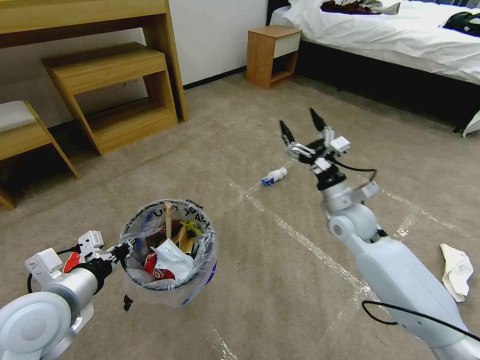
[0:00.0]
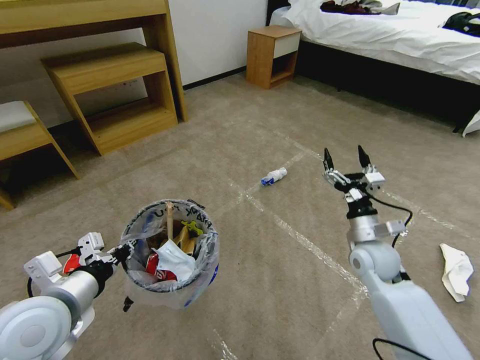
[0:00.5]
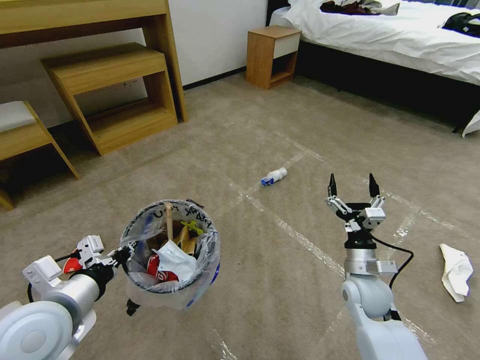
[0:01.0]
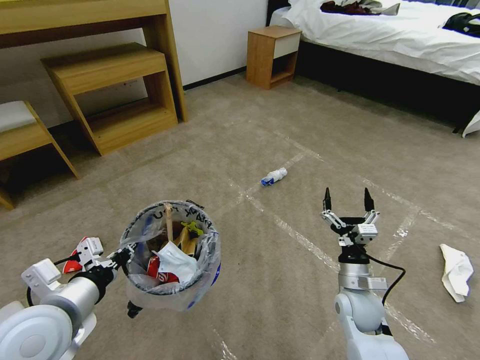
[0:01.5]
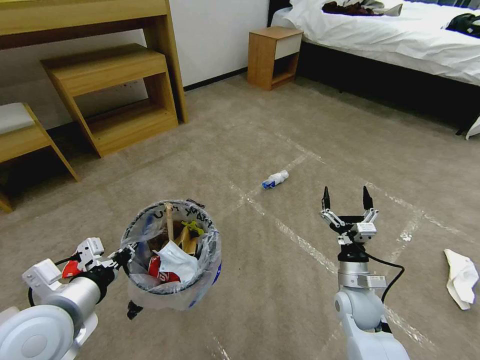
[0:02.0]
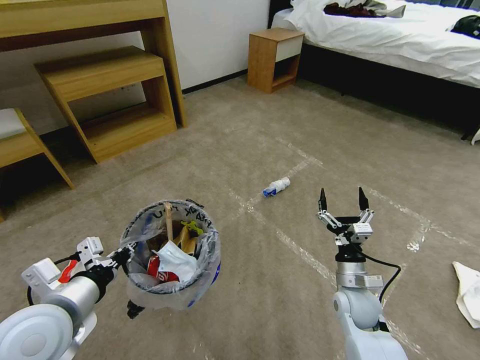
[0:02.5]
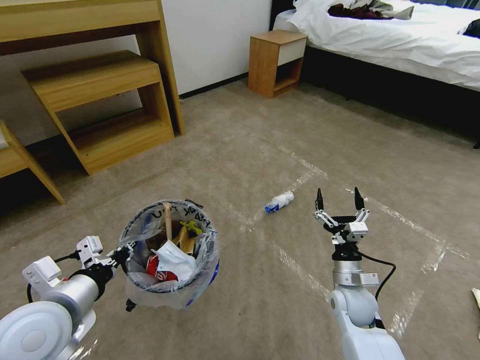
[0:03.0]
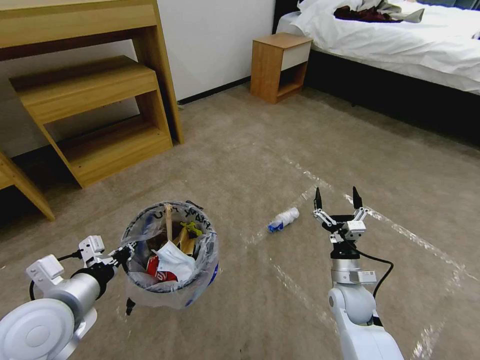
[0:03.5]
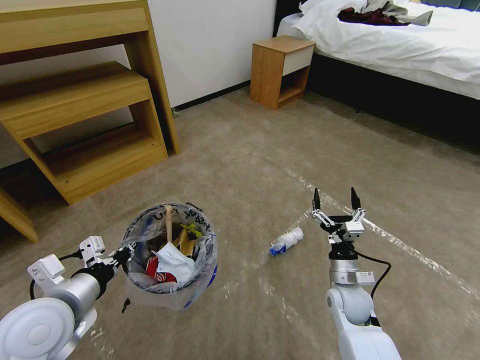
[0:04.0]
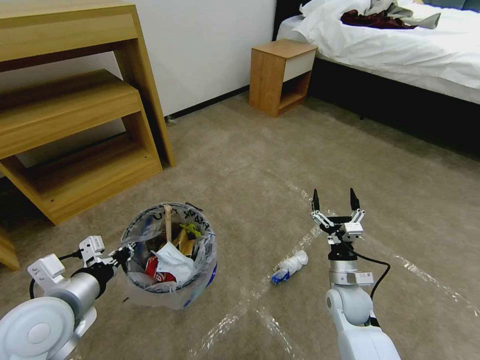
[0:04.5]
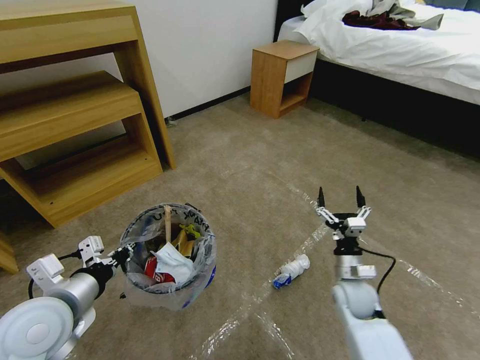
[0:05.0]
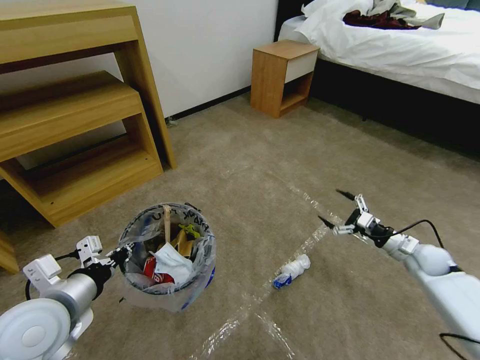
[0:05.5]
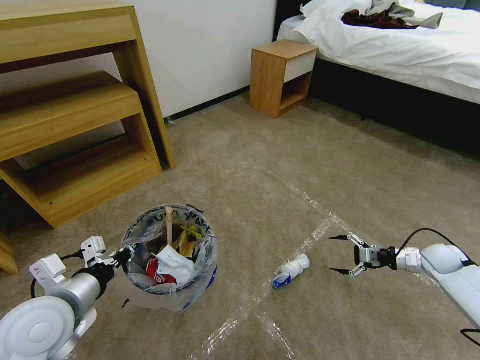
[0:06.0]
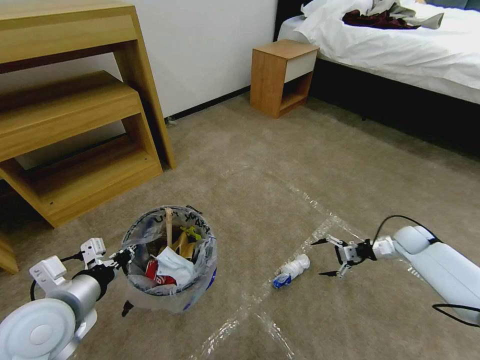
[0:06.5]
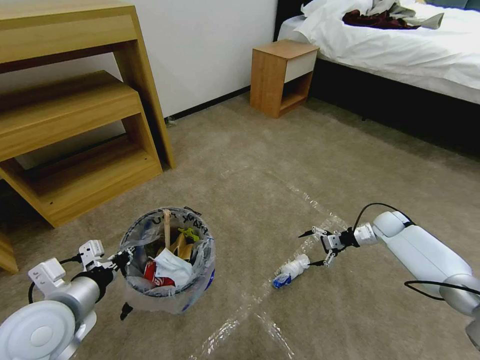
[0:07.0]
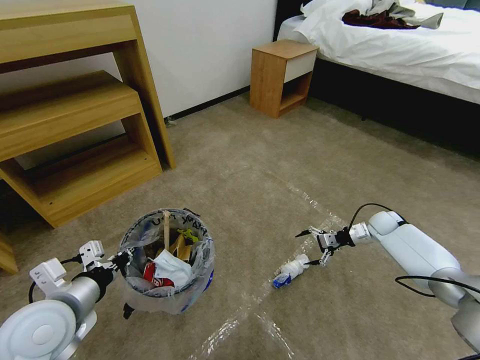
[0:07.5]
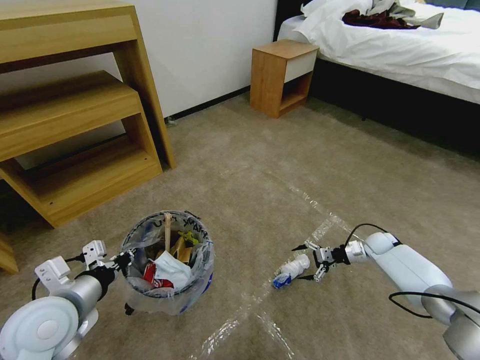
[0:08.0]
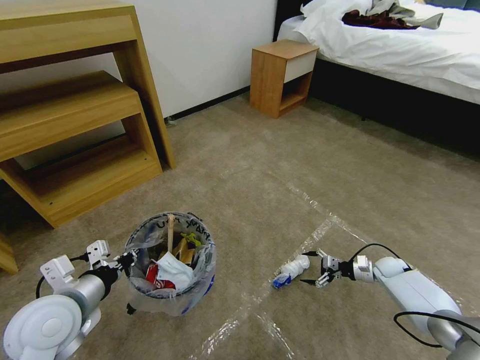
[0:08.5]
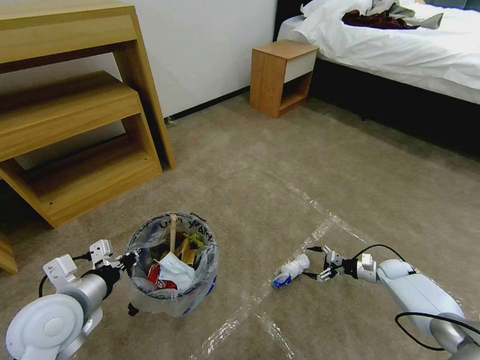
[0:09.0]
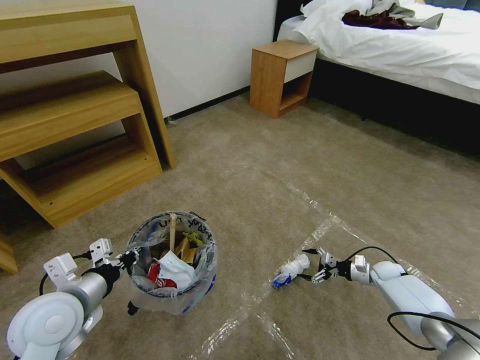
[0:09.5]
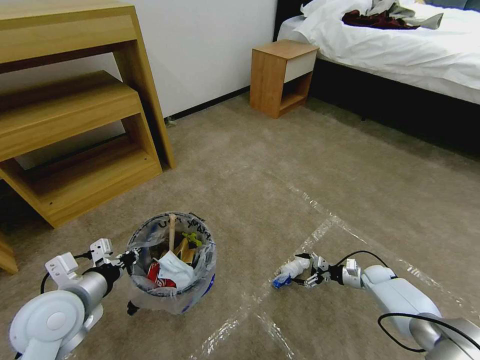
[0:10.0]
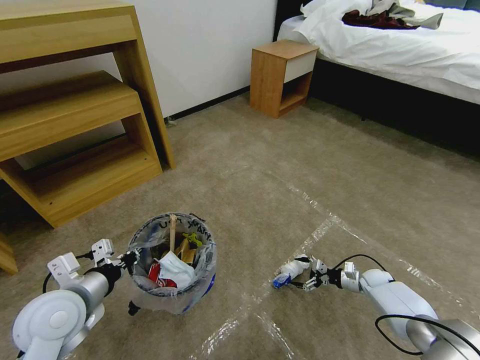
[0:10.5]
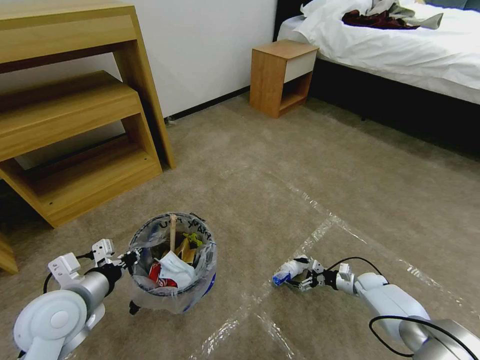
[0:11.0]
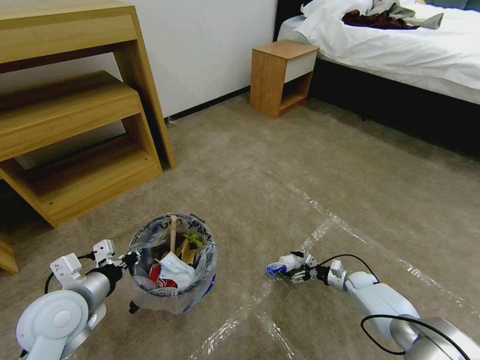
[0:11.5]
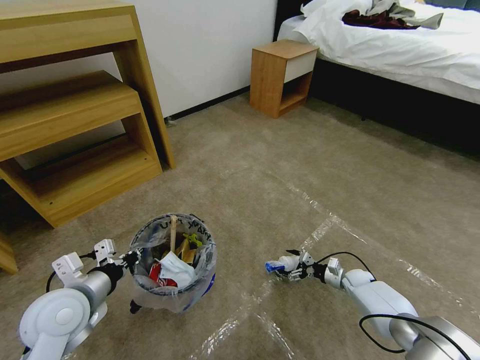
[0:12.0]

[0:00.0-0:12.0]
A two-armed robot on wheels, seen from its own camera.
Task of the whole recording: Pick up the trash bin and place the garbage on the floor into it.
0:00.0 to 0:02.0: The right gripper goes roughly 20 cm downward and backward.
0:04.0 to 0:06.0: The right gripper travels to the right by roughly 30 cm.
0:06.0 to 0:08.0: The right gripper heads to the left, forward and downward, covering roughly 15 cm.
0:08.0 to 0:10.0: The right gripper travels downward and backward by about 10 cm.
0:10.0 to 0:12.0: The right gripper travels to the left by about 5 cm.

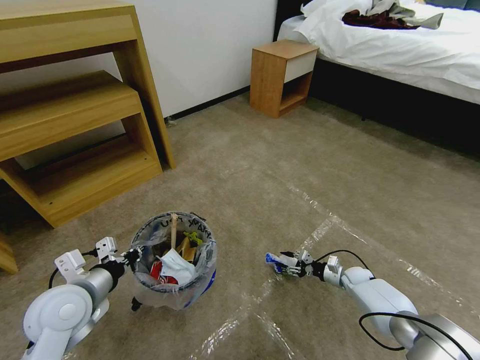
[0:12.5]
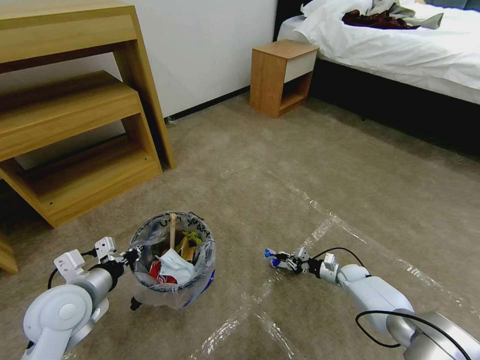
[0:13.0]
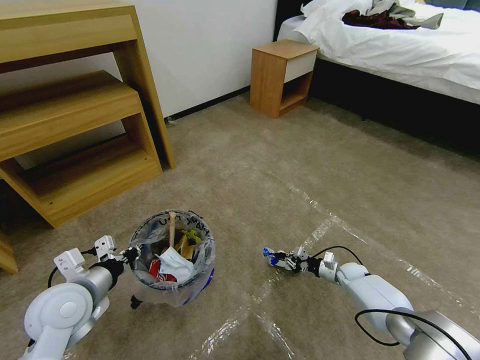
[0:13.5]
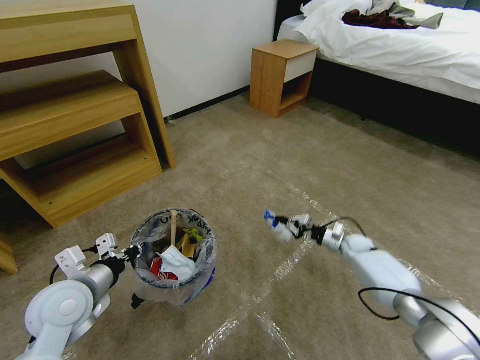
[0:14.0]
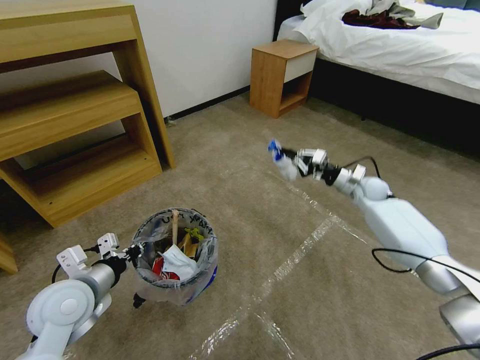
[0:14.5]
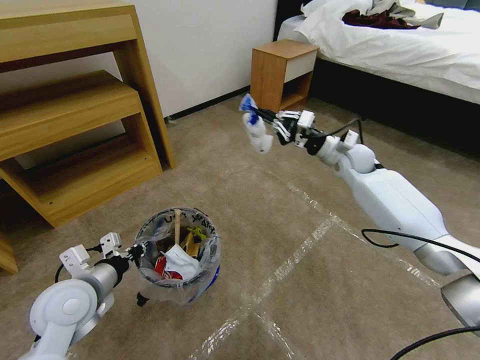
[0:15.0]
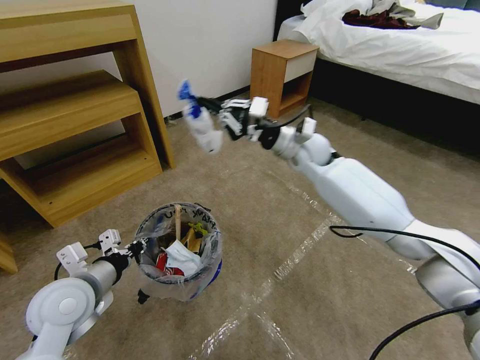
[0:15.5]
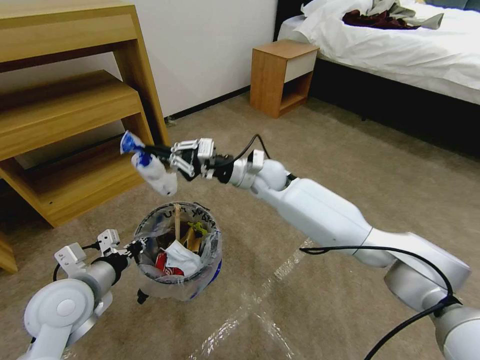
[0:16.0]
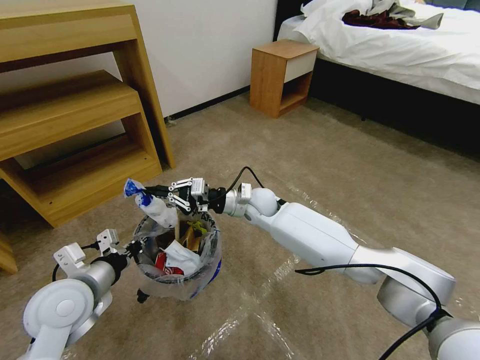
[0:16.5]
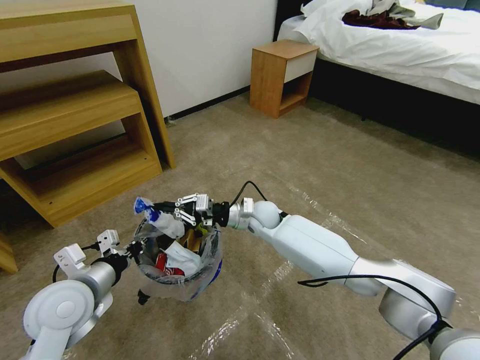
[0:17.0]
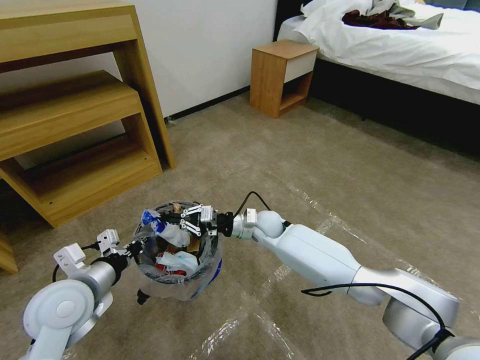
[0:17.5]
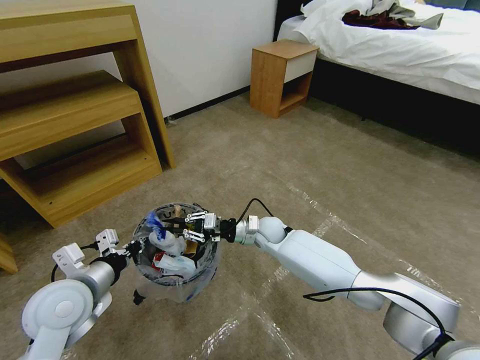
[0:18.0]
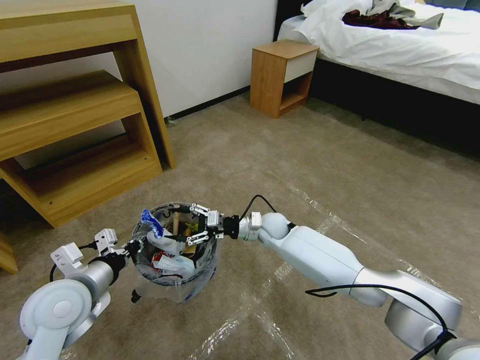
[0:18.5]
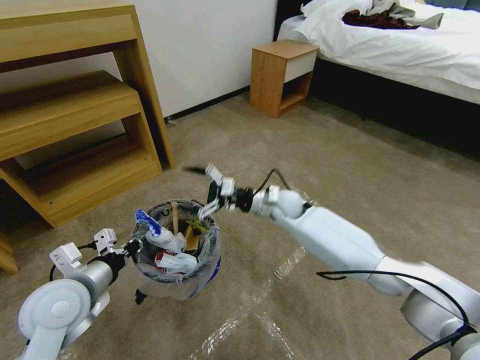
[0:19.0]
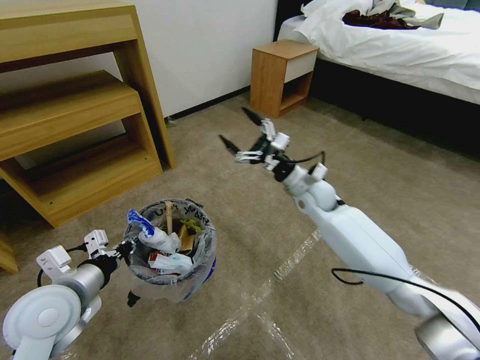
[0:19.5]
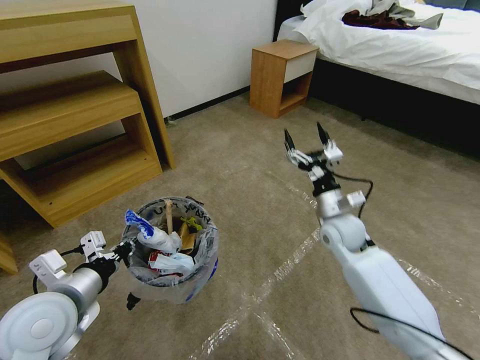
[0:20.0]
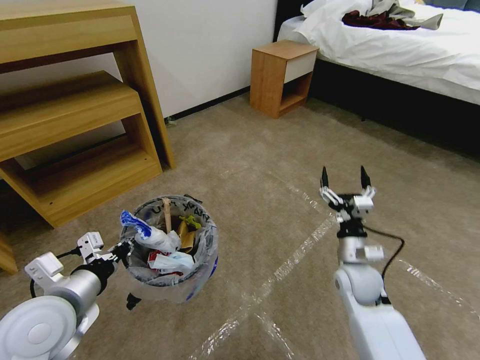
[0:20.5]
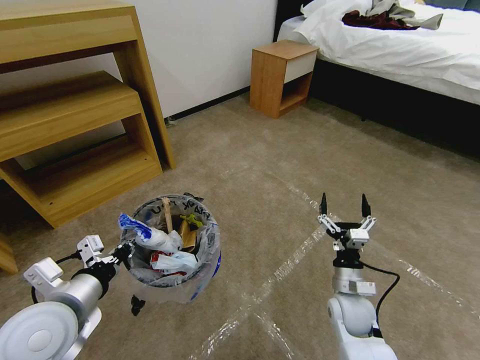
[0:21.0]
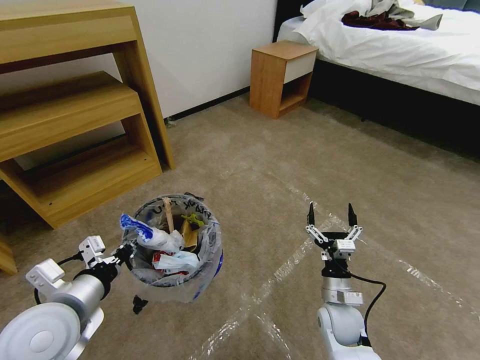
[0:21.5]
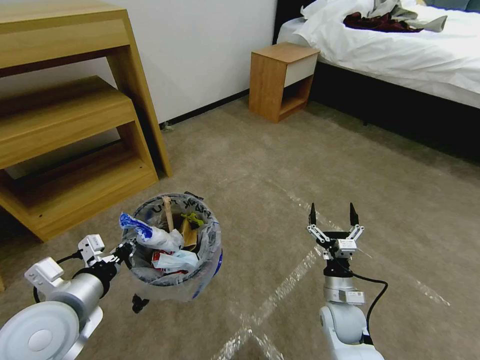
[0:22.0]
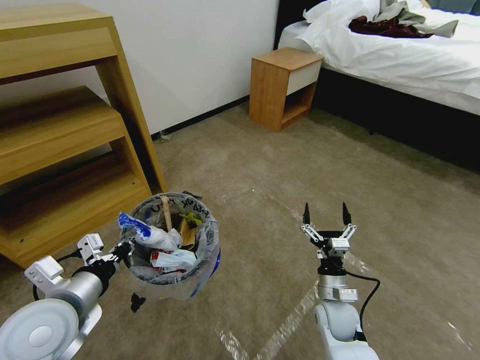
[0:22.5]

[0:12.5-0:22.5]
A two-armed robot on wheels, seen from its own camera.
Task of the whole recording: Pick up the trash bin and place the garbage on the floor into it.
0:12.5 to 0:14.5: The right gripper shifts about 30 cm upward and forward, and closes.
0:14.5 to 0:16.5: The right gripper shifts some 35 cm to the left.
0:16.5 to 0:18.5: The right gripper moves downward, about 10 cm, and opens its fingers.
0:18.5 to 0:20.5: The right gripper is displaced to the right and backward by roughly 25 cm.
0:20.5 to 0:22.5: The right gripper travels downward and backward by approximately 10 cm.

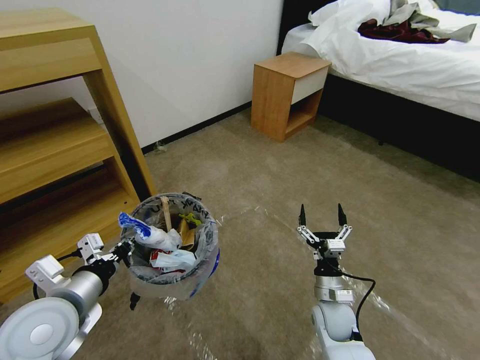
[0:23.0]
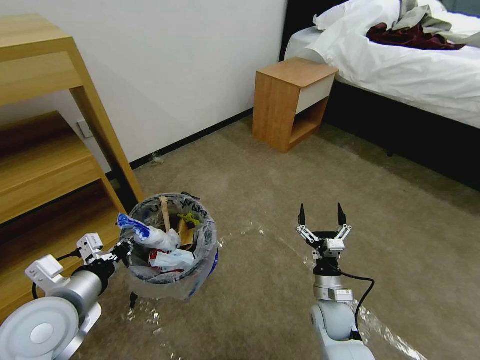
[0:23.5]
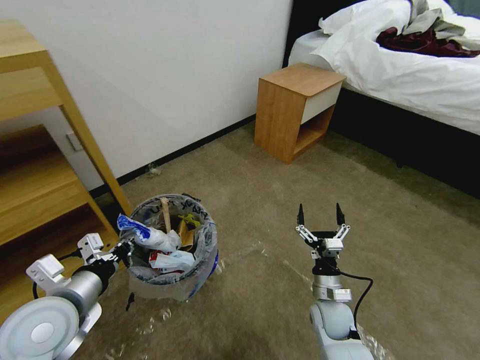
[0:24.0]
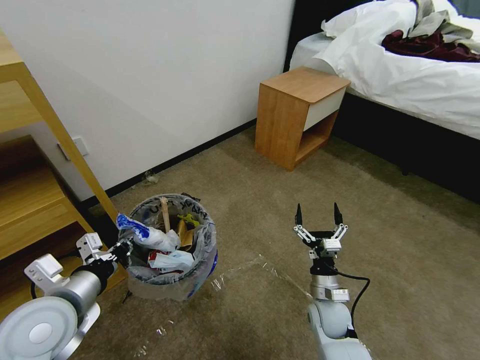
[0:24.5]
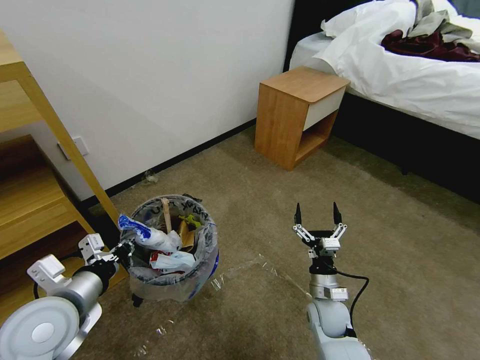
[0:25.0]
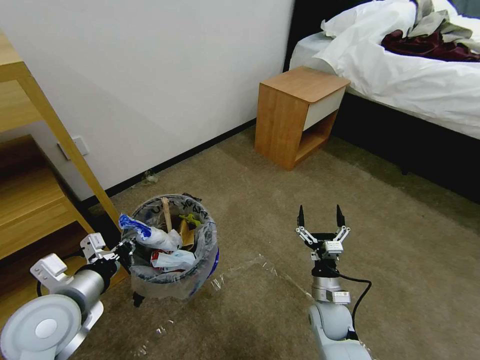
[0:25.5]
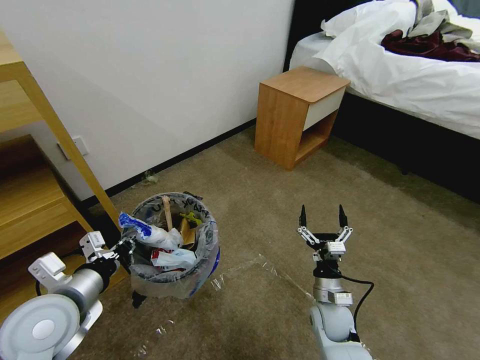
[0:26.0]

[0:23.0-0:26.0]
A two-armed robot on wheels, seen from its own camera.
Task of the whole recording: Pick up the trash bin and place the garbage on the floor into it.
0:24.5 to 0:26.0: Both grippers stay put.
